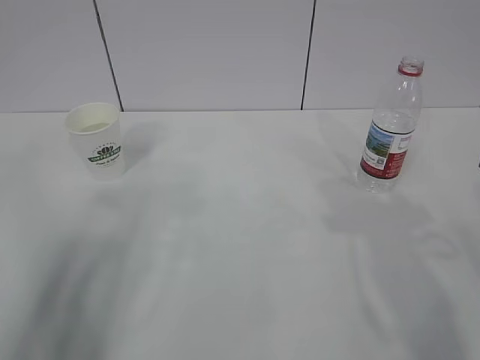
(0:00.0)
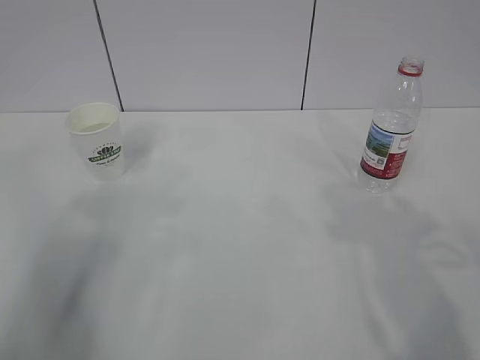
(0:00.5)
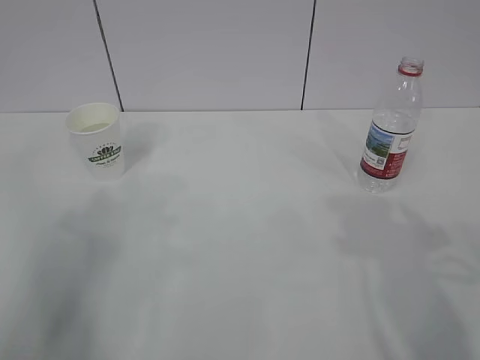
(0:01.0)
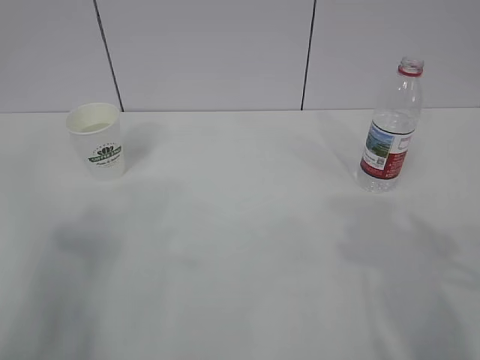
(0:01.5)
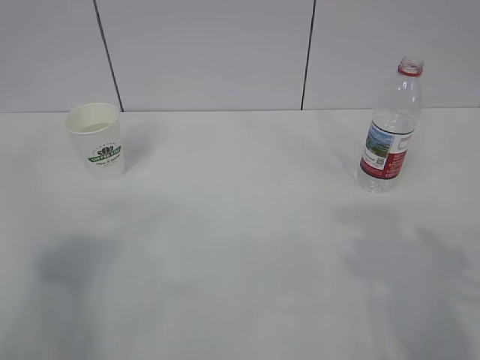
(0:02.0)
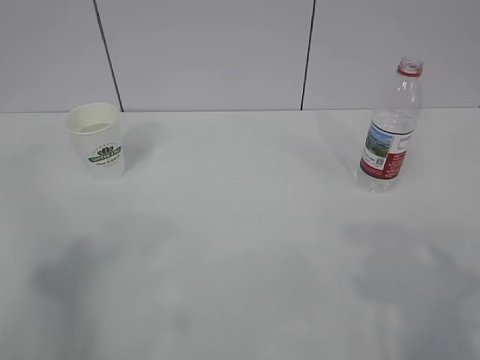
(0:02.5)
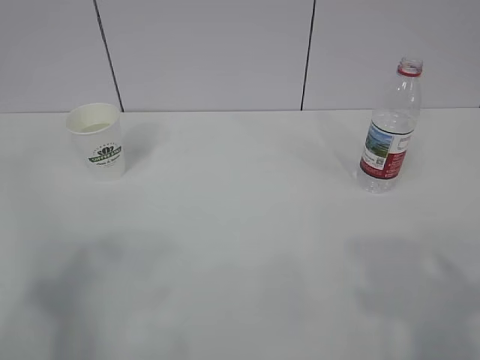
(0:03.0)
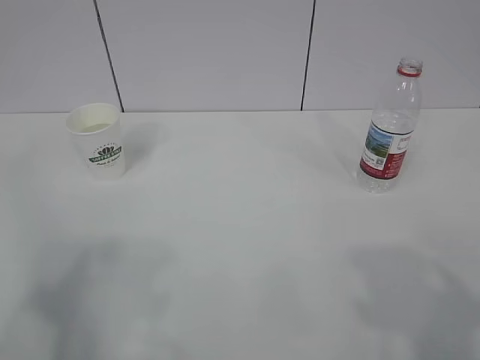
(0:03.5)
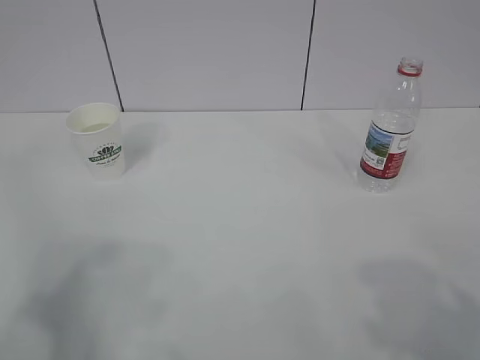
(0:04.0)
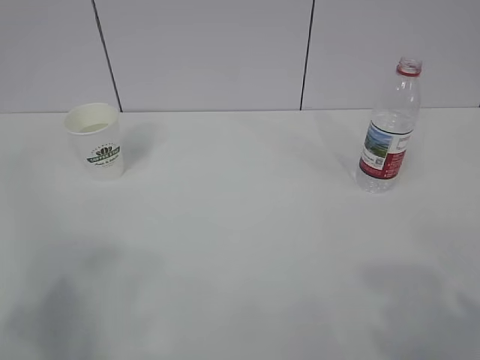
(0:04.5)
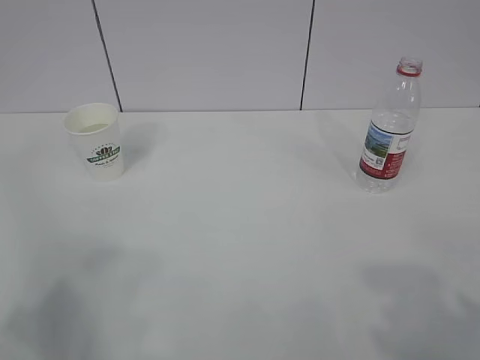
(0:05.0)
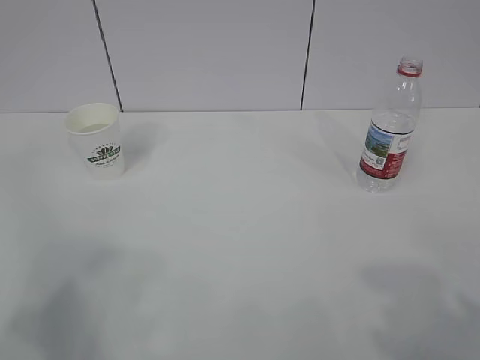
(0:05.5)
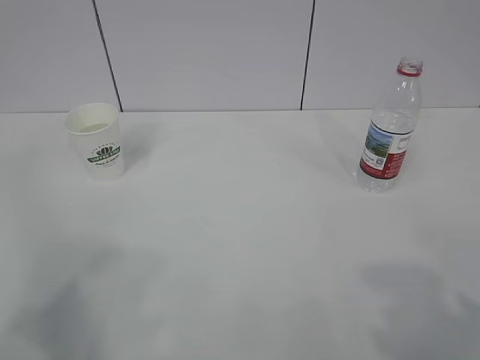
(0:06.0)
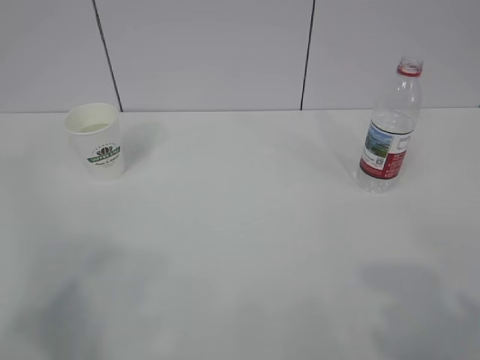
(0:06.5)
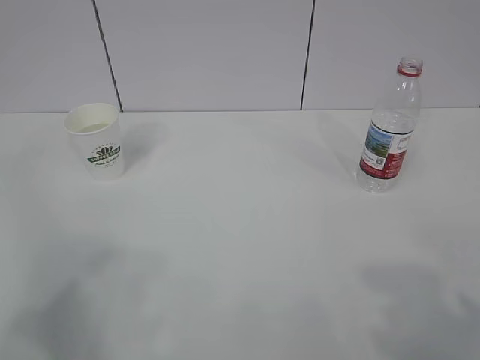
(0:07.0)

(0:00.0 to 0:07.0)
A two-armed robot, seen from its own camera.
0:05.0 - 0:07.0: Neither gripper changes place.

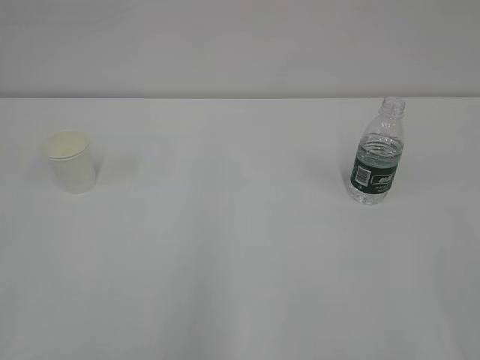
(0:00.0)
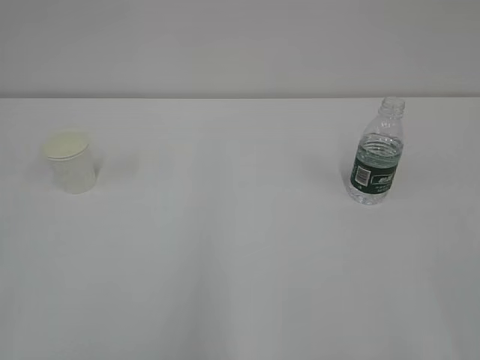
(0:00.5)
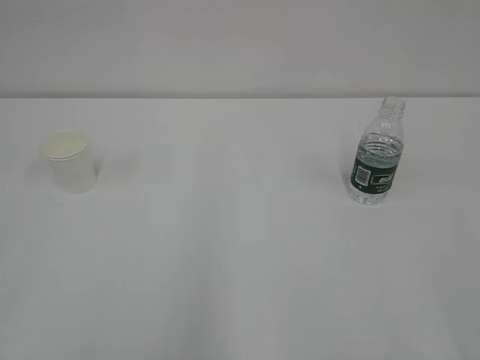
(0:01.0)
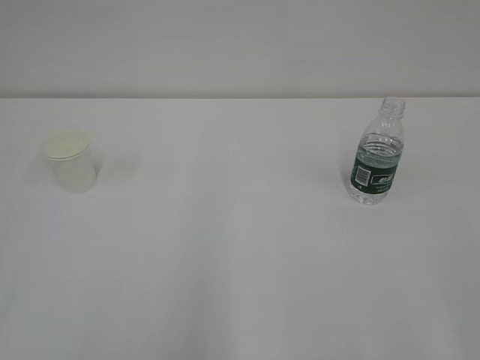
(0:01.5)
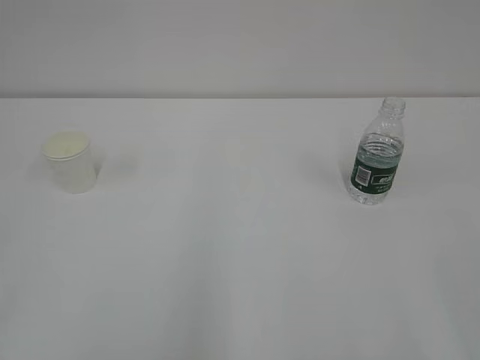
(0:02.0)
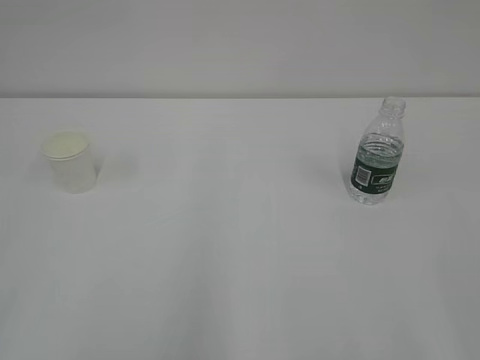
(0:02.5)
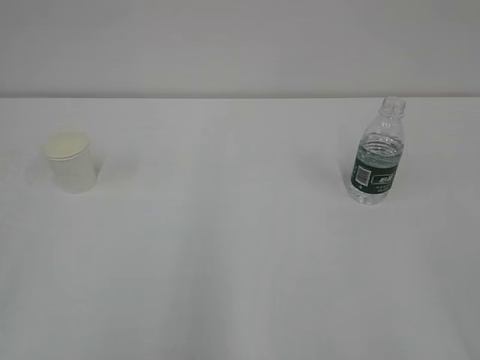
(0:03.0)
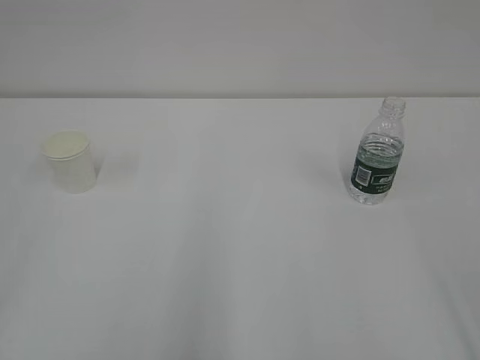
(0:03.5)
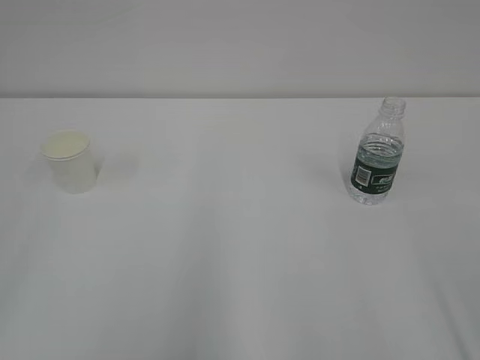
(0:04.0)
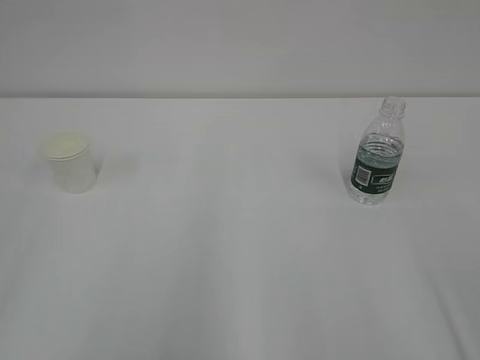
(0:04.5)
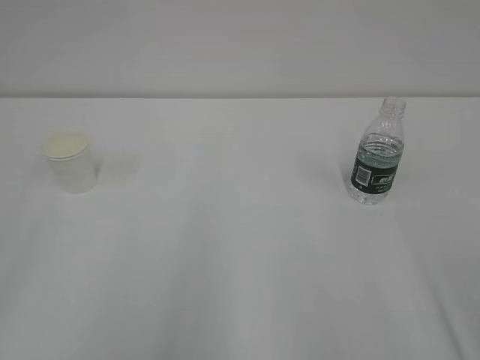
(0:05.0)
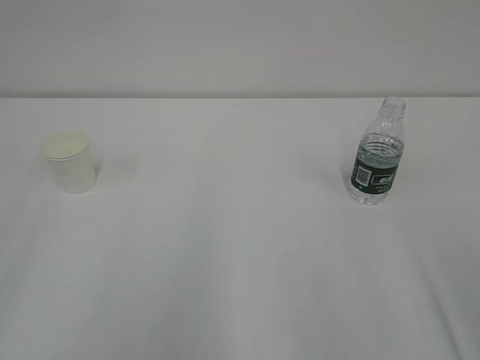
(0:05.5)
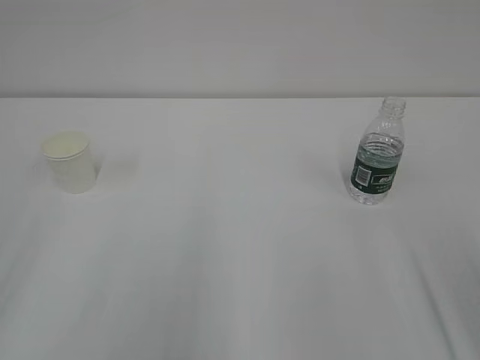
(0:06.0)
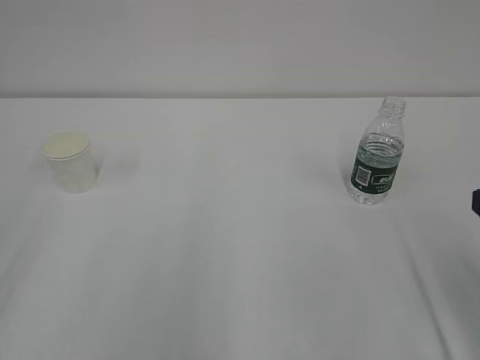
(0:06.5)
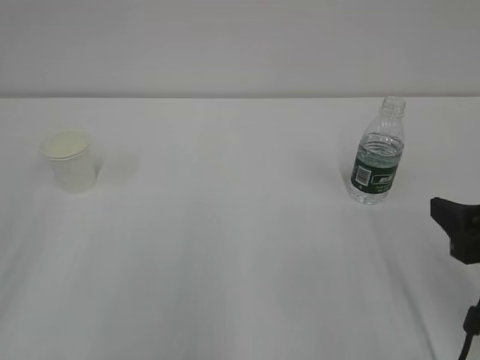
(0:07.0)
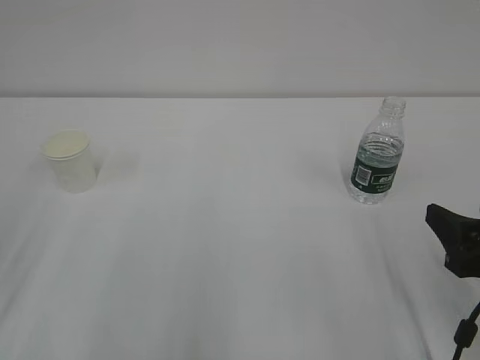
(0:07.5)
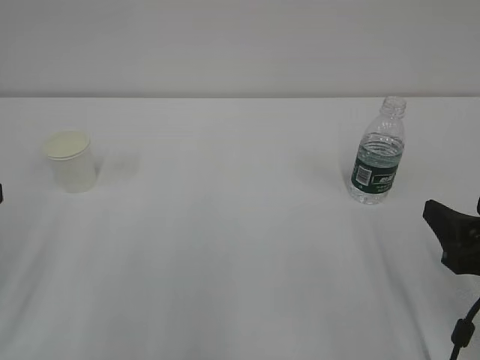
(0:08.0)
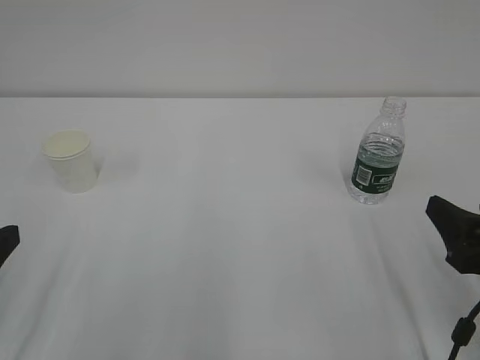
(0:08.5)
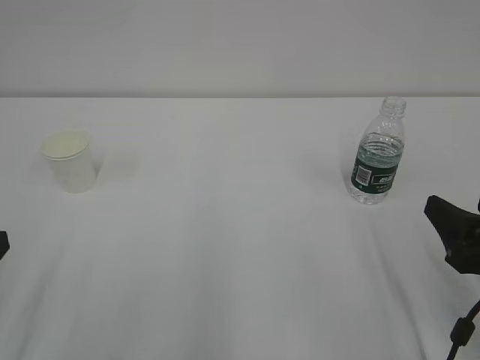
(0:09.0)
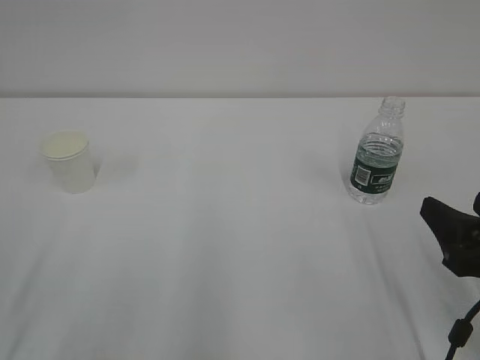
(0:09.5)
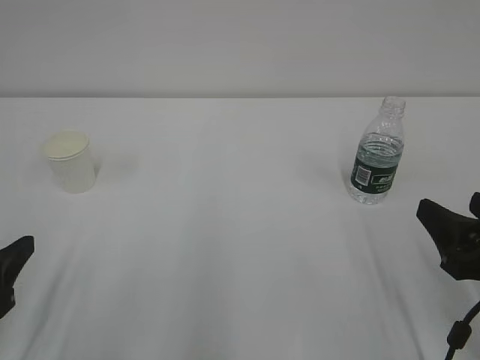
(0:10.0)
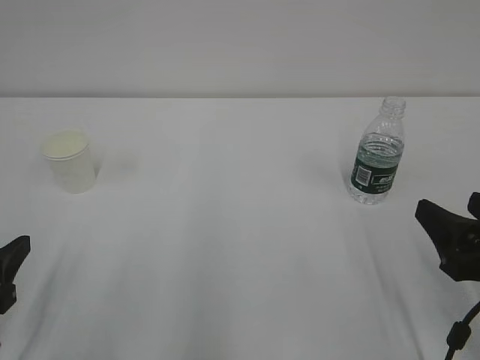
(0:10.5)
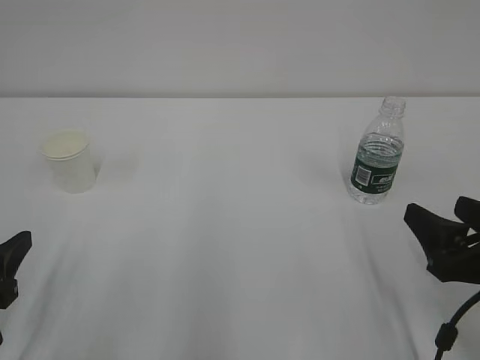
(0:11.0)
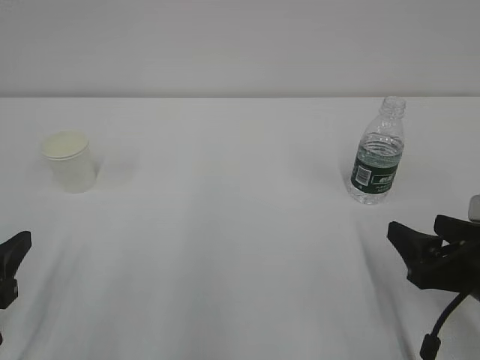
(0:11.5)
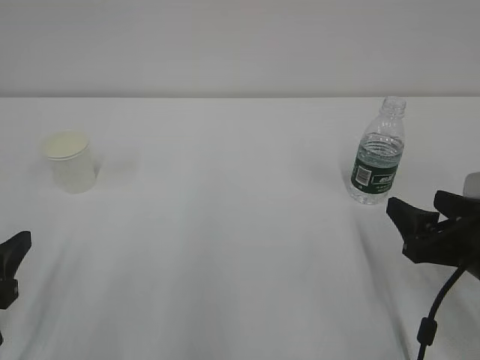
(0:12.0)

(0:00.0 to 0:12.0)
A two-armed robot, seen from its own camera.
0:06.0 - 0:08.0: The right gripper moves downward and forward, some 10 cm.
0:08.0 - 0:10.0: The left gripper is displaced downward by some 5 cm.
0:10.0 - 0:12.0: The right gripper changes place by some 5 cm.

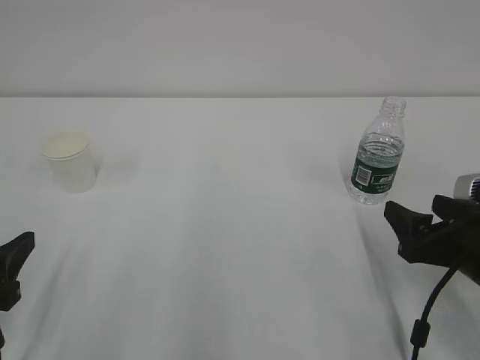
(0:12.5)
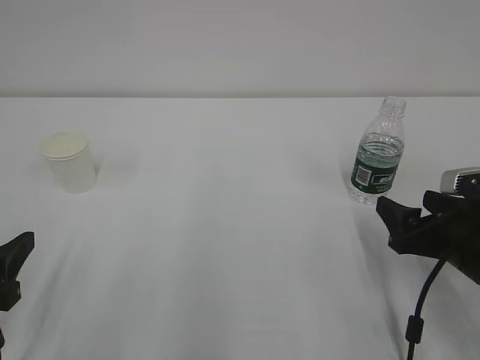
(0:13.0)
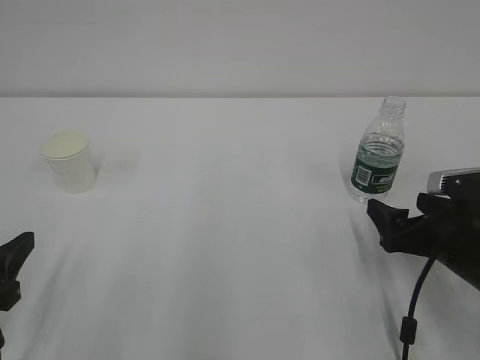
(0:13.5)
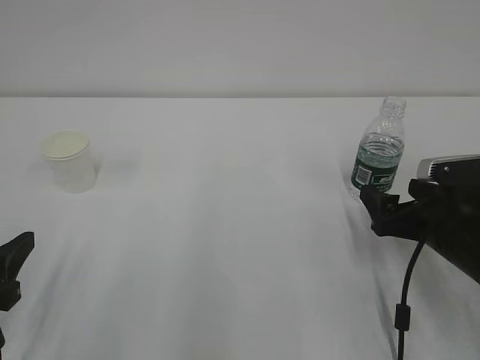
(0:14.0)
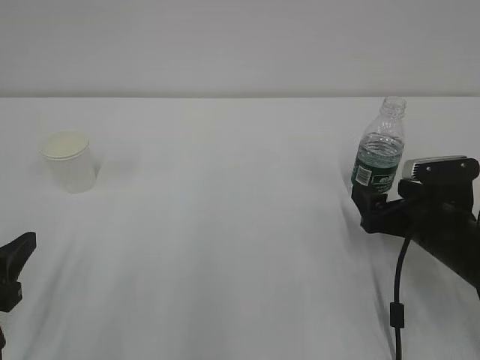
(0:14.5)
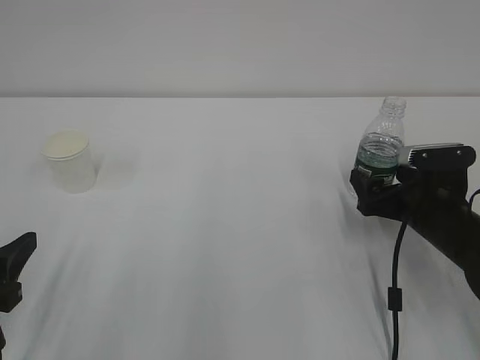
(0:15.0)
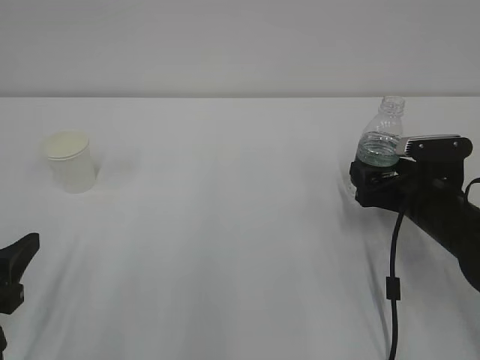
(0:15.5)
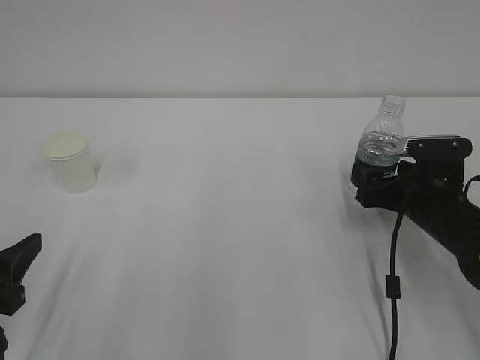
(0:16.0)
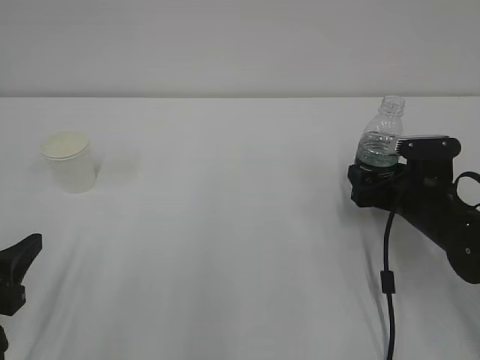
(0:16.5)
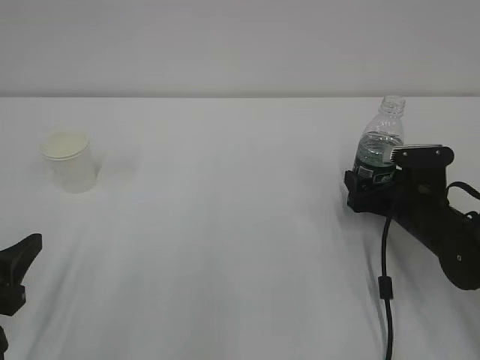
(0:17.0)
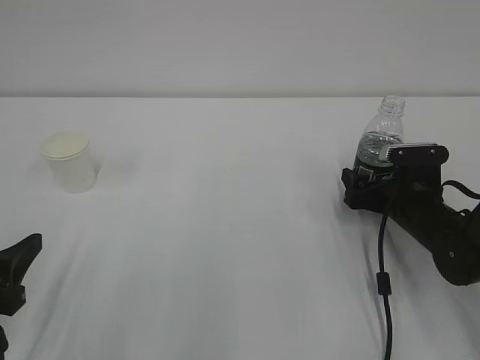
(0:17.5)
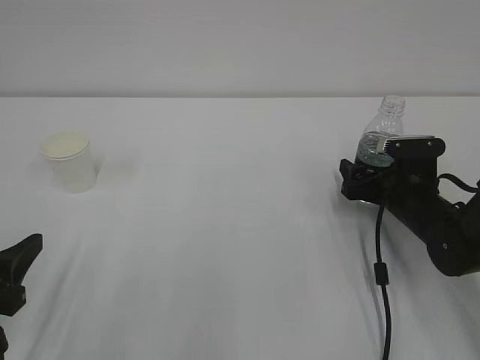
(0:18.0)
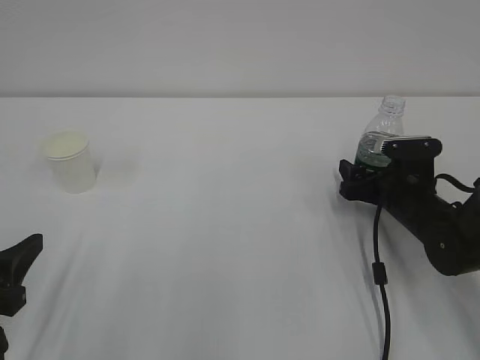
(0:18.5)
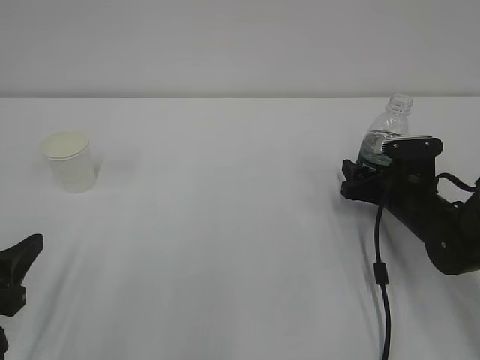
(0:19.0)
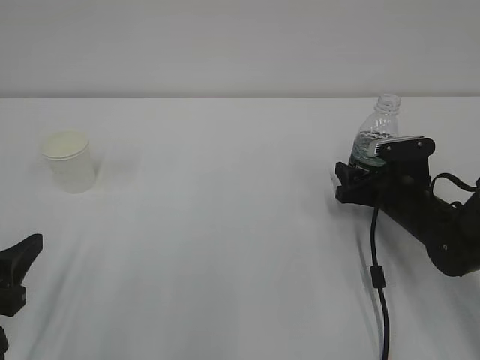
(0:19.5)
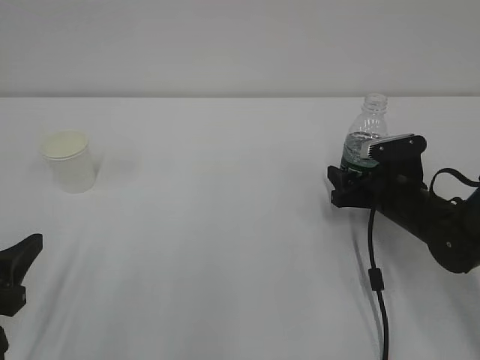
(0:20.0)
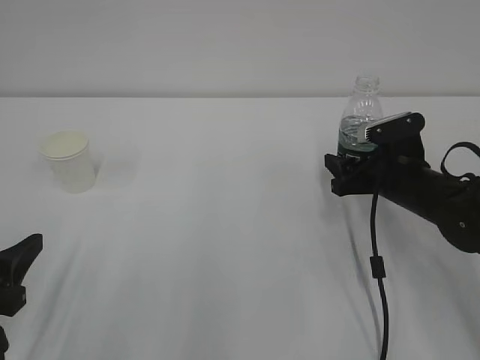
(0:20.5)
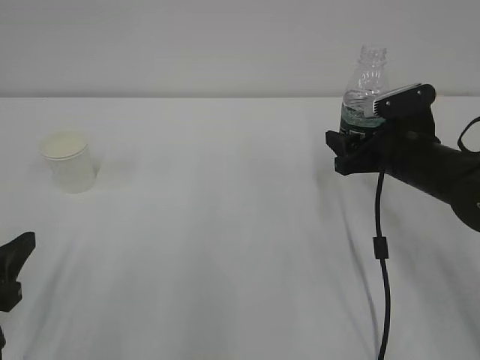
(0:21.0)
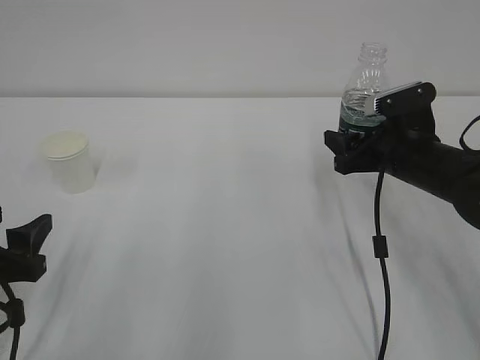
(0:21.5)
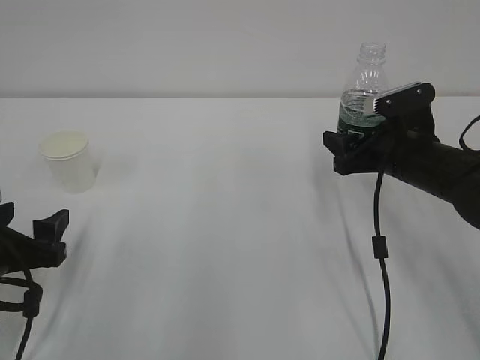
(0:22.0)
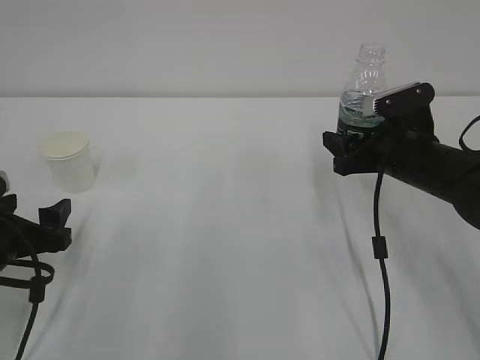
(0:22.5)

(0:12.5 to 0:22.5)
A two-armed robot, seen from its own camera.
0:12.5 - 0:14.5: The right gripper heads forward, covering approximately 5 cm.
0:14.5 - 0:16.5: The grippers stay close to where they were, moving slightly.
0:16.5 - 0:18.5: The grippers stay close to where they were, moving slightly.
0:18.5 - 0:20.5: The right gripper closes.
0:20.5 - 0:22.5: The left gripper is displaced forward by some 10 cm, and opens up.
